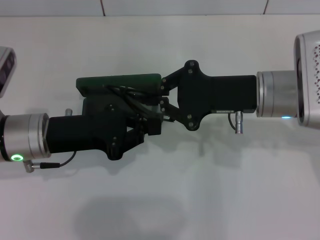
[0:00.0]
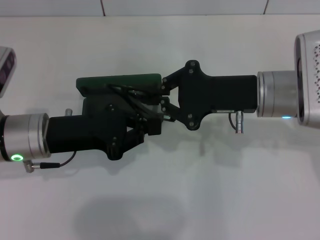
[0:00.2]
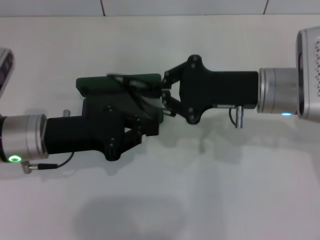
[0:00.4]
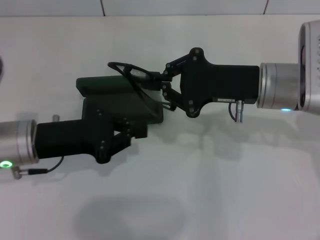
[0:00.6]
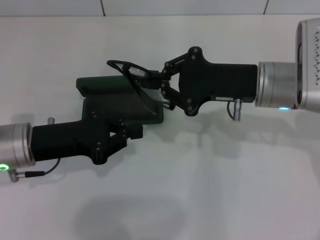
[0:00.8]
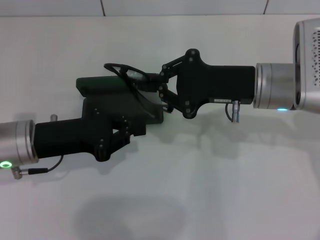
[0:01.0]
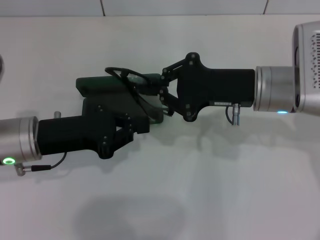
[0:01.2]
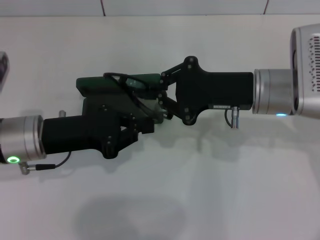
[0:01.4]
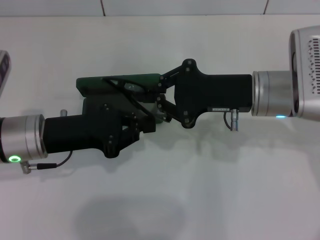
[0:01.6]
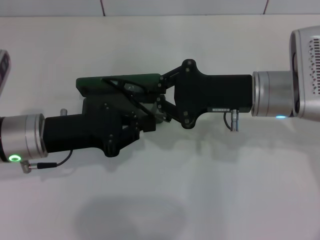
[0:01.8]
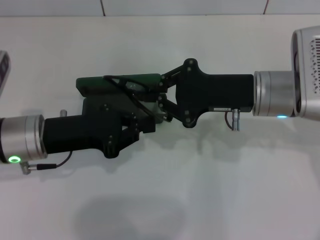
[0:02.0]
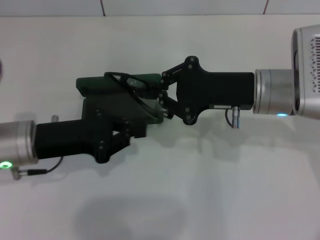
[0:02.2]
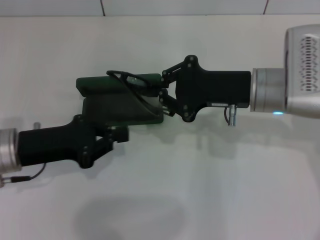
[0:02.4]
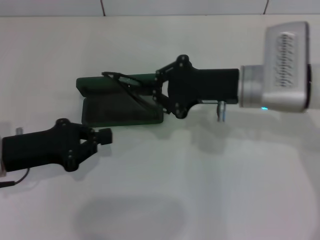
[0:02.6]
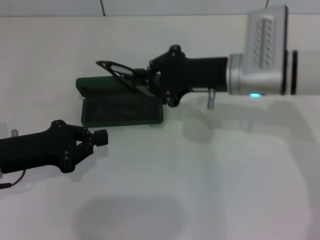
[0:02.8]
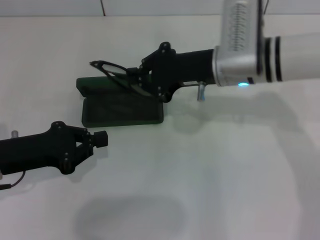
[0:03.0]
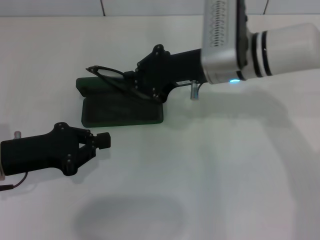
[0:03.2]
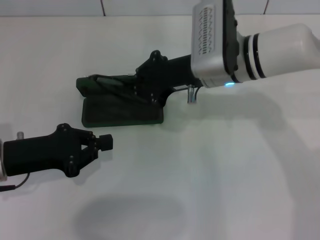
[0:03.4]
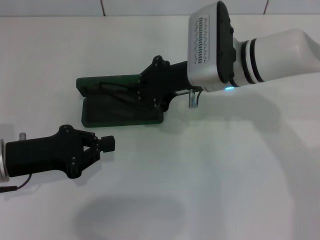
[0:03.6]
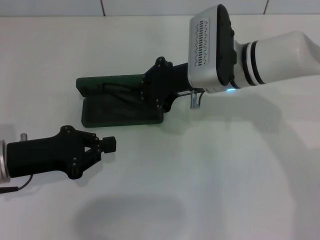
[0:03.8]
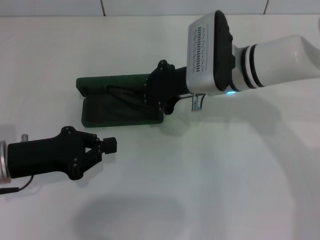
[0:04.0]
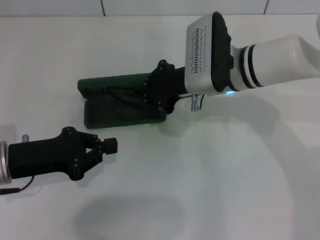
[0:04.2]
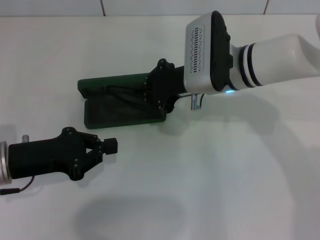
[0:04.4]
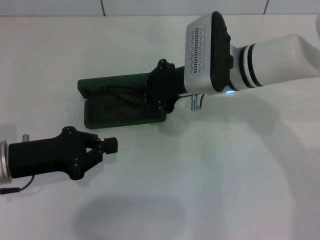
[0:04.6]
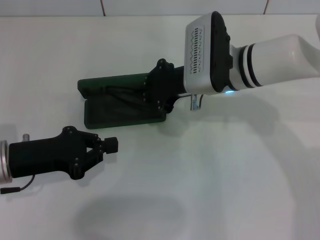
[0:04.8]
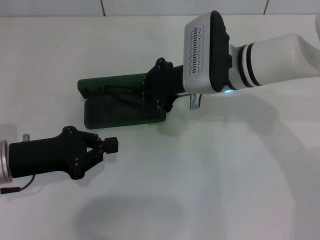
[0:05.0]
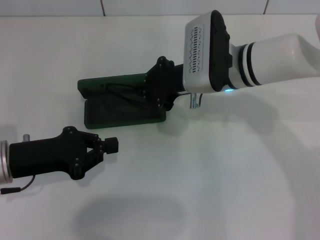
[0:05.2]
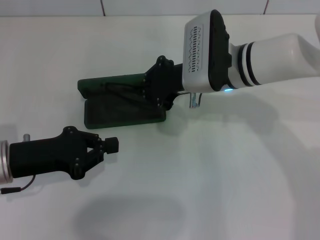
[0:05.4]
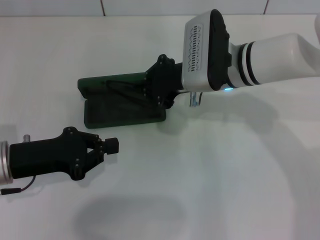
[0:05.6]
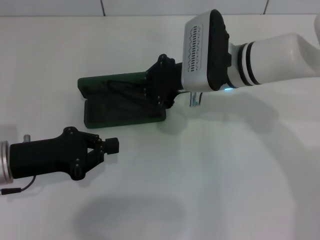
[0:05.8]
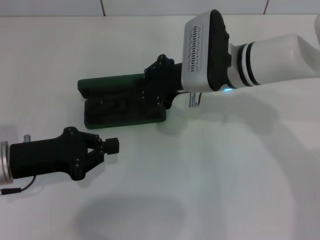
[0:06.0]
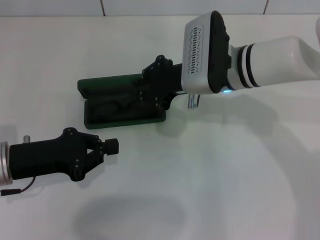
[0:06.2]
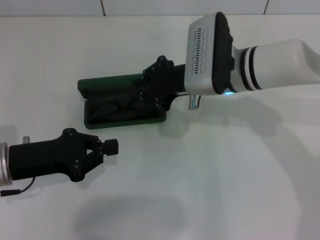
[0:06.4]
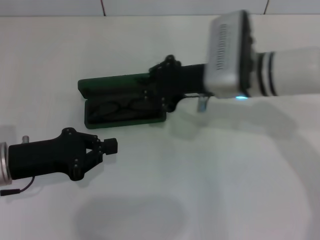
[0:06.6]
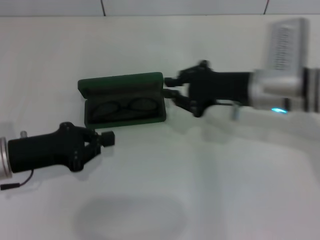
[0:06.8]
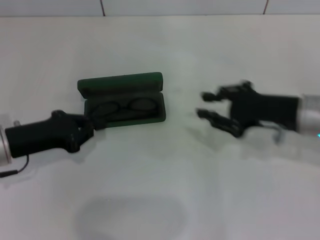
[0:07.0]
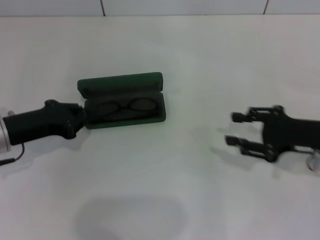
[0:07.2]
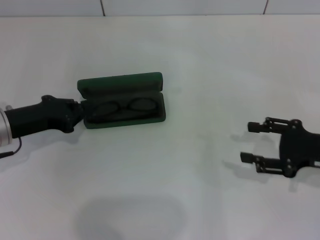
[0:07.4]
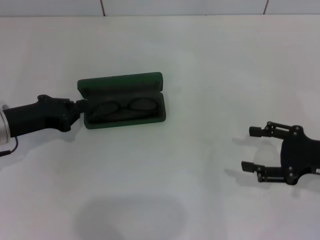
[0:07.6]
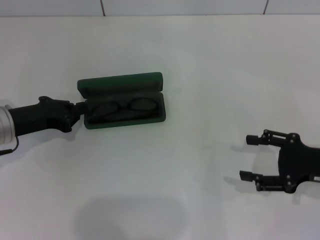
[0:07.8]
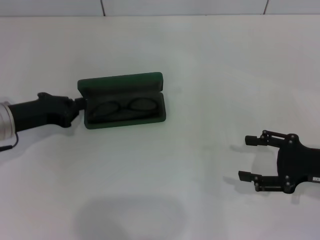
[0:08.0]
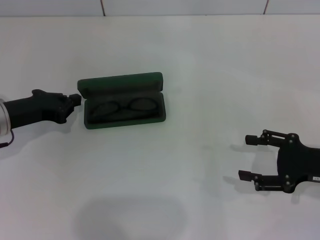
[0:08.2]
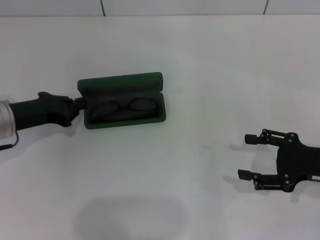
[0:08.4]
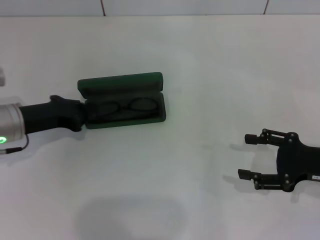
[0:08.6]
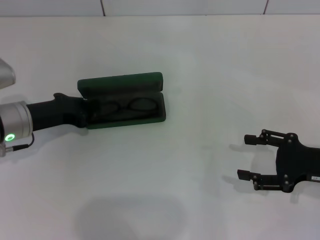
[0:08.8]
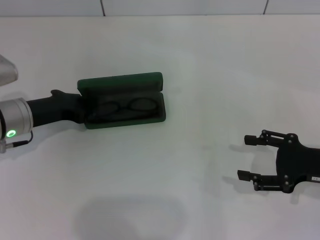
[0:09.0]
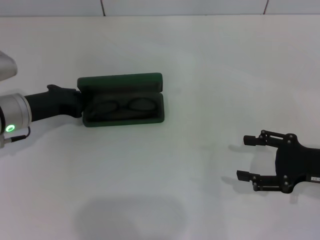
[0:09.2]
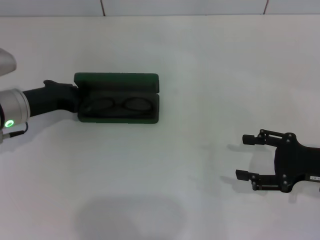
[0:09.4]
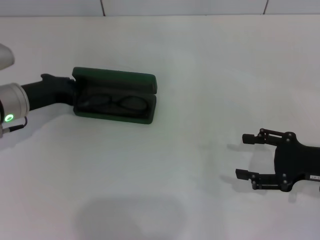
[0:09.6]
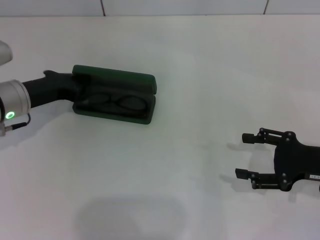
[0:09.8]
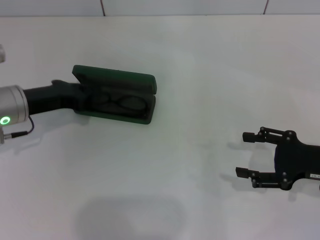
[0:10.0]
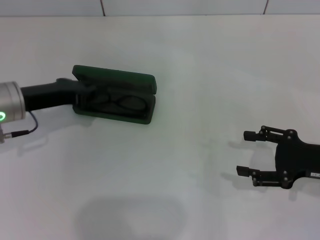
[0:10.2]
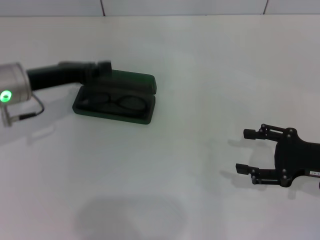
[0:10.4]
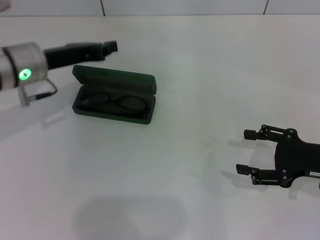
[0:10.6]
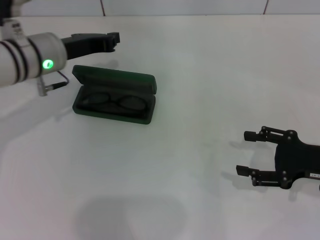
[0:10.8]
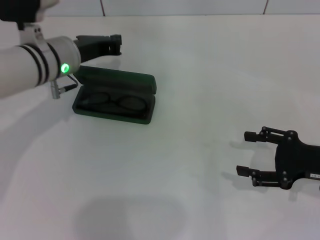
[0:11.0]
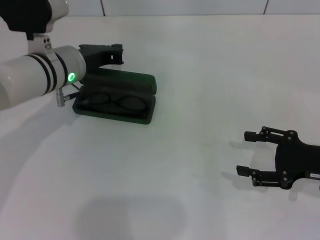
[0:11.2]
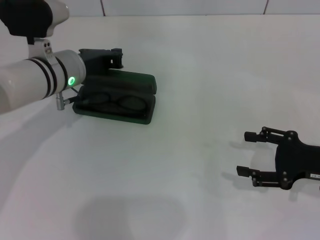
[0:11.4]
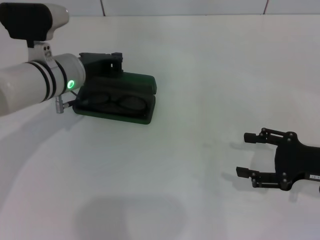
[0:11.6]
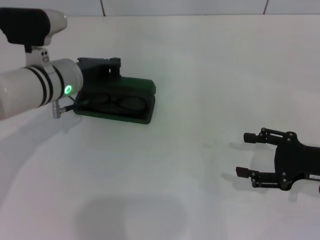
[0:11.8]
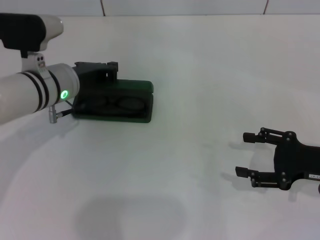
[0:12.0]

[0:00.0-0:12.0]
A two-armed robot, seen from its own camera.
Step, 0:00.6 to 0:06.6: Put the glasses into the case with your right hand.
0:00.0 to 0:01.6: The grippers move only a little.
0:01.6 to 0:03.0: The right gripper moves roughly 5 cm, while the left gripper shifts approximately 5 cm to the left.
0:03.0 to 0:04.4: The grippers stay close to where they were, moving slightly.
0:04.4 to 0:06.0: The two grippers keep their place.
0:06.0 to 0:07.6: The left gripper goes roughly 5 cm forward. The right gripper heads to the right and backward, covering roughly 25 cm, and opens up.
0:07.6 to 0:09.0: The grippers make only small movements.
0:09.0 to 0:10.4: The left gripper moves upward, approximately 5 cm.
0:10.4 to 0:12.0: The left gripper travels to the right by some 5 cm.

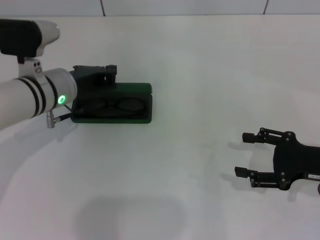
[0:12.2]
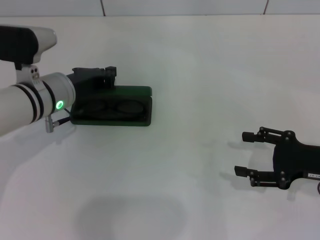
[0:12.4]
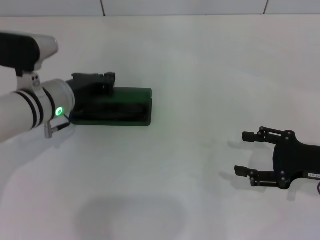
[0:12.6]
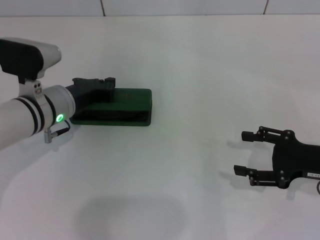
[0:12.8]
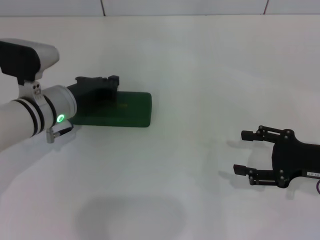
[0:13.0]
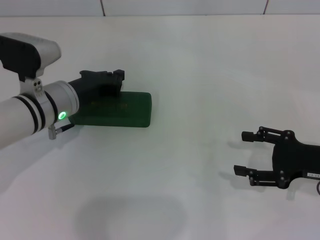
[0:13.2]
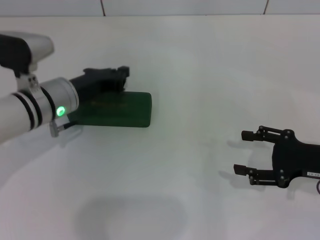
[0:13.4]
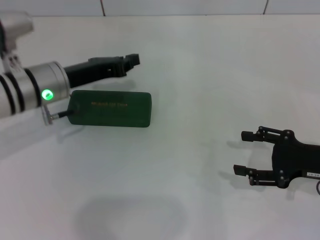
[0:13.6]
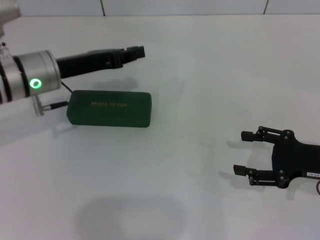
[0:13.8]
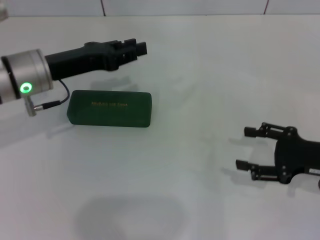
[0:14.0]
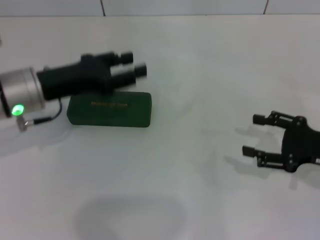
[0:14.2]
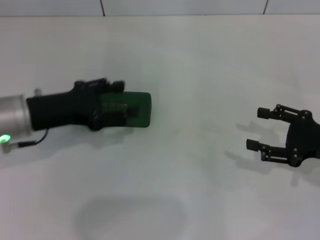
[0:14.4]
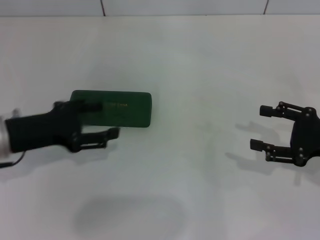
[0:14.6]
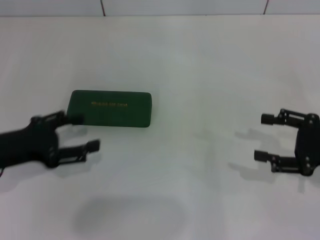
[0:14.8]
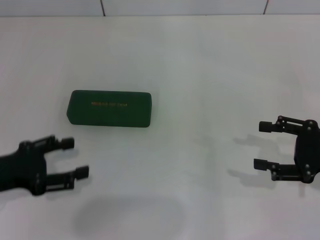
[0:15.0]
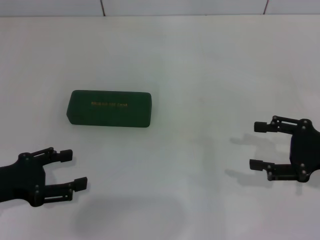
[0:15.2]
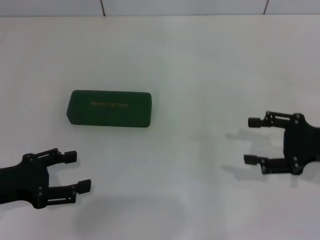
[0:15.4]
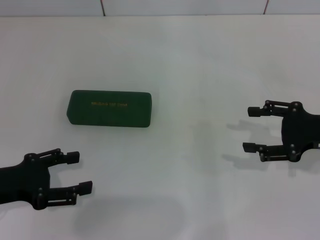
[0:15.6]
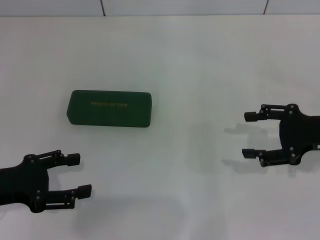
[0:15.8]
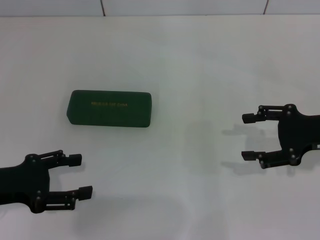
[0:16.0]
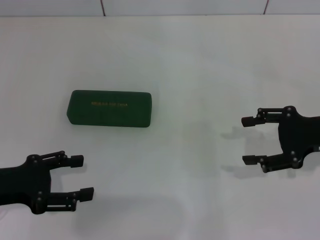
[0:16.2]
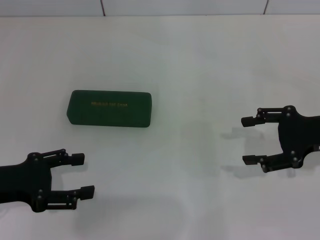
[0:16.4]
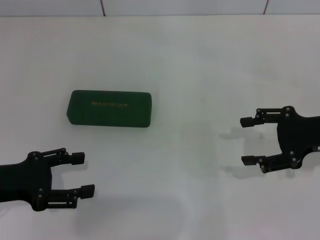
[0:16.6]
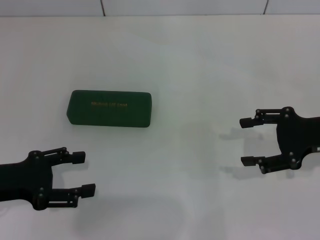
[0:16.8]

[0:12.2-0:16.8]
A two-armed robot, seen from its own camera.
0:13.8 to 0:15.2: The left gripper is displaced backward and to the left by approximately 20 cm, and opens up.
0:15.2 to 0:16.8: The right gripper moves roughly 5 cm.
